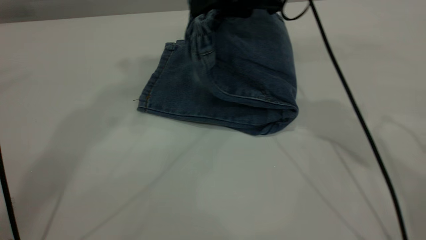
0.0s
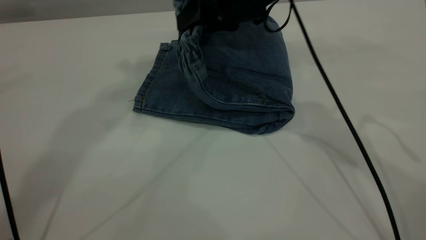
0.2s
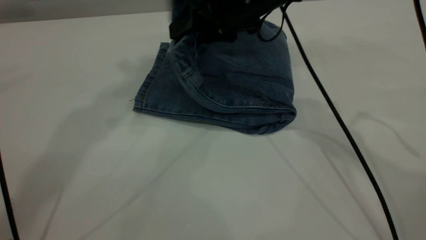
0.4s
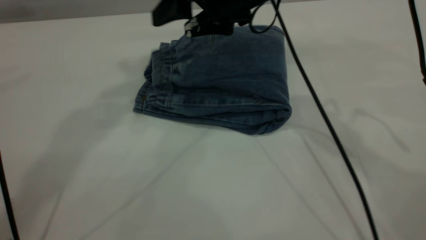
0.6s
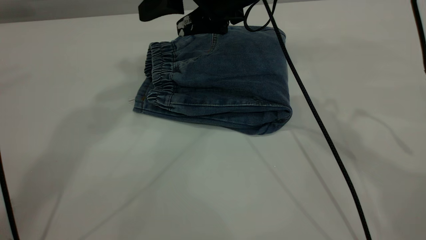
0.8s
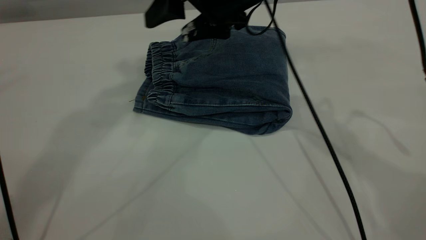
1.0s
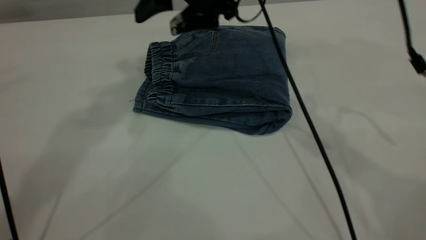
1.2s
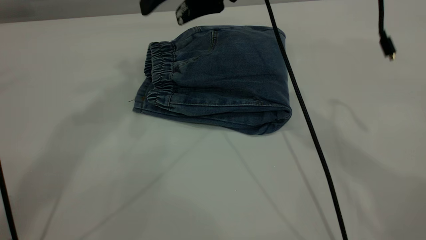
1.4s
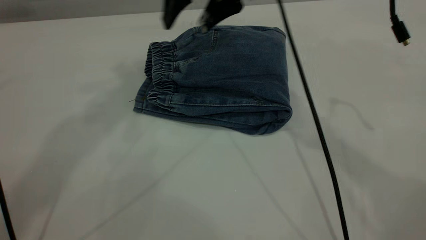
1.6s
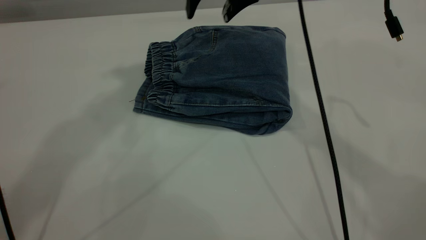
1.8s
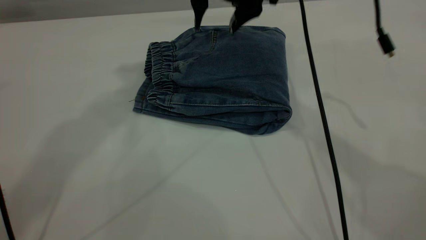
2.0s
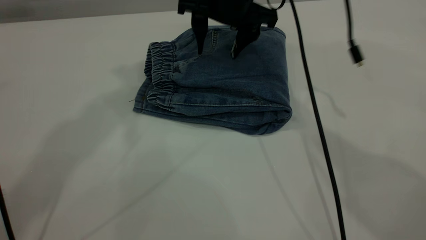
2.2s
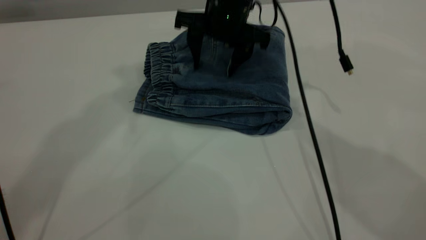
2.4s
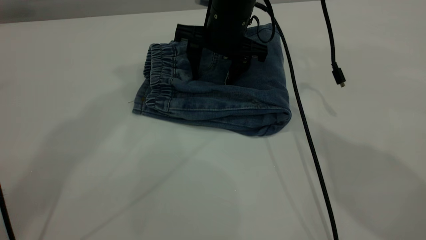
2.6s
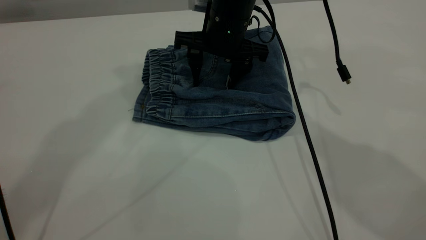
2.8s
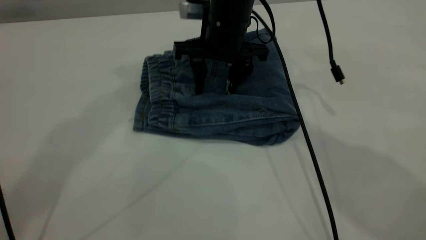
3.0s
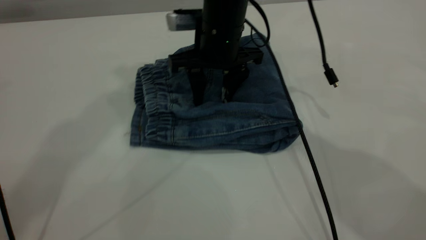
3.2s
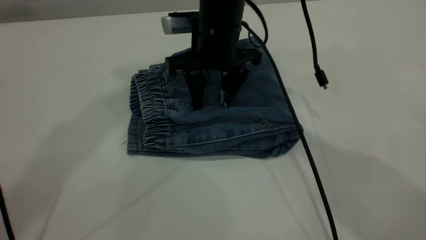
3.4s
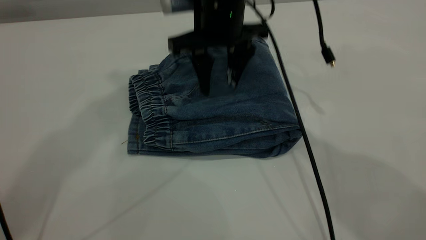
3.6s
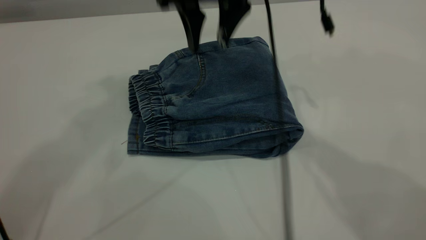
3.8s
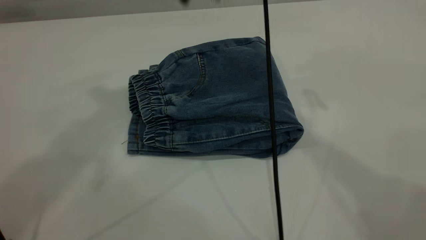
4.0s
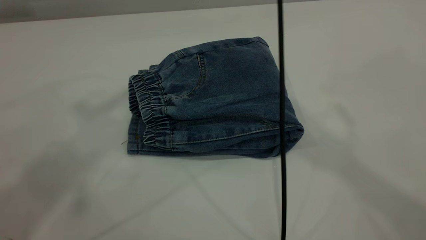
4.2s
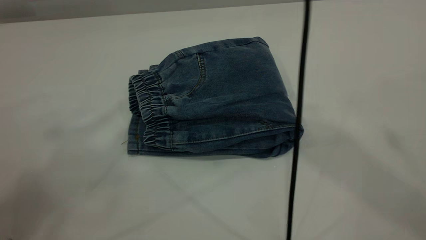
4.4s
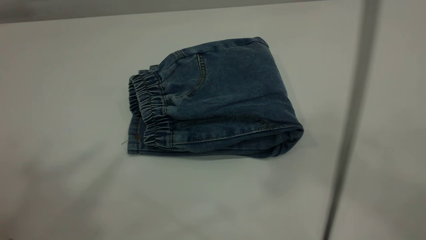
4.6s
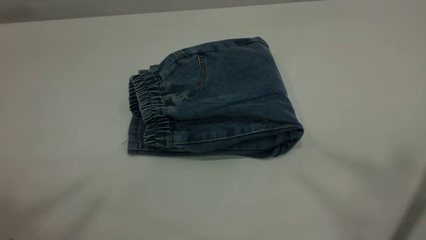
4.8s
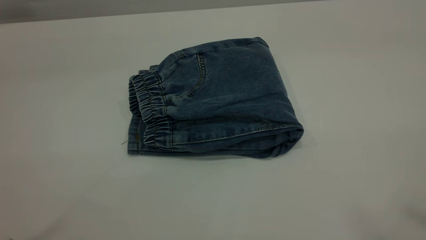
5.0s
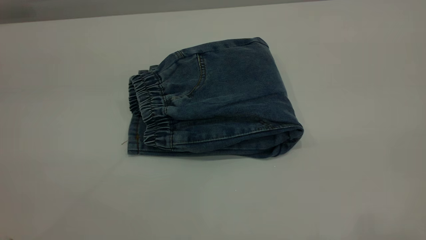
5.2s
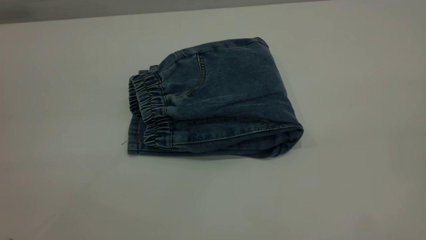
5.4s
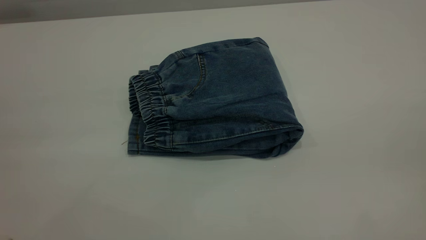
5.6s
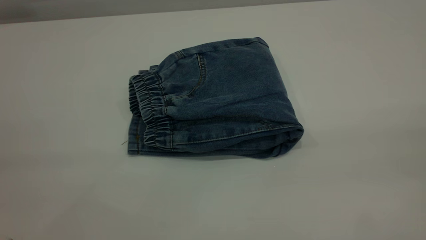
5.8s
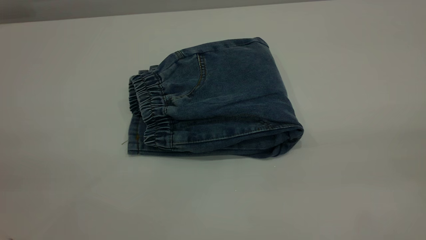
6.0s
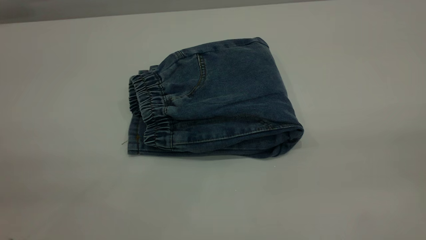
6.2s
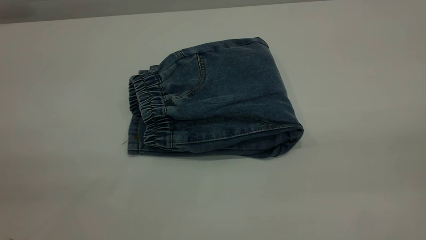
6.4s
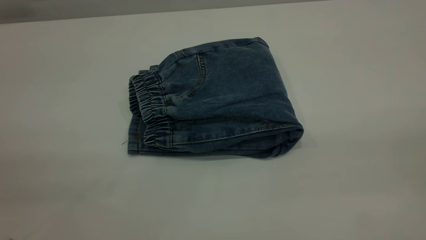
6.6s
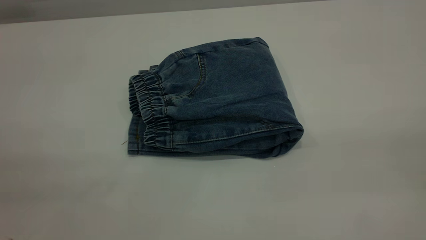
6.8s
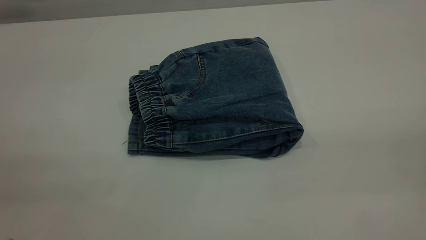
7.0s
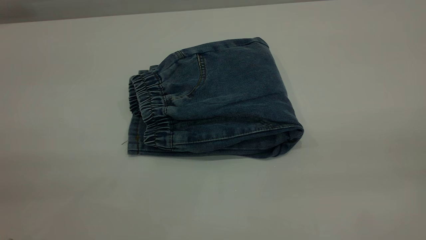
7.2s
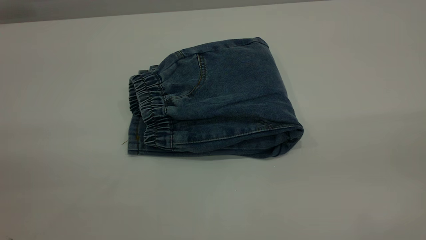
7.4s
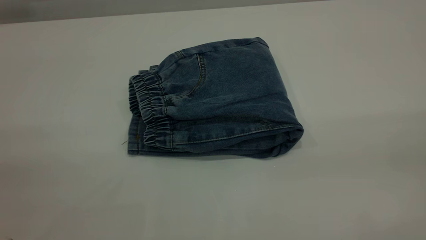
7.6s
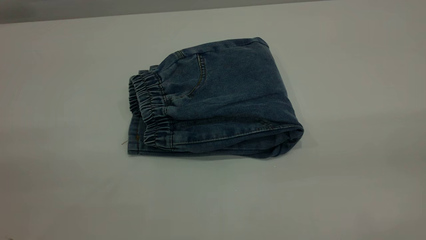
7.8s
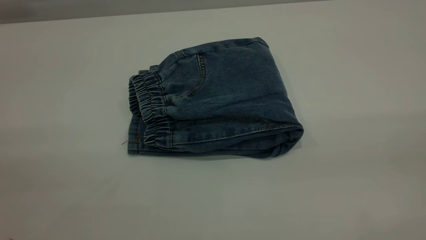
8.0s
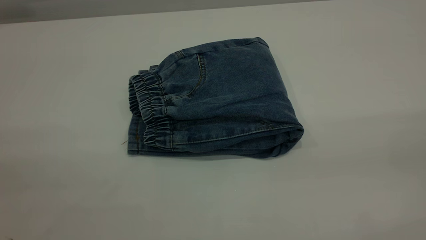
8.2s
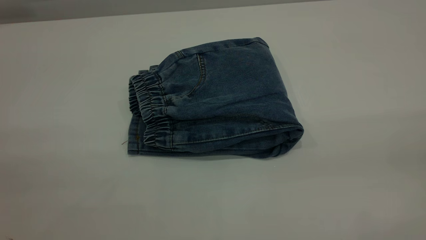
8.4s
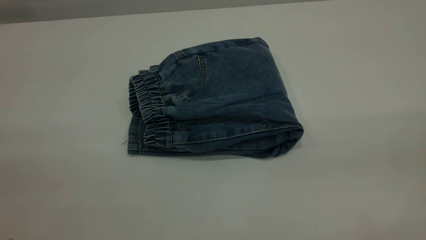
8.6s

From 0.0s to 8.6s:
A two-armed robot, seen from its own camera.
From 0.0s to 1.4s: The right gripper travels to the left by approximately 5 cm, and opens its fingers.
From 1.4s to 2.8s: The right gripper heads downward, covering roughly 10 cm.
From 2.8s to 4.4s: The left gripper moves backward and upward, some 20 cm. Meanwhile the right gripper heads upward, covering about 40 cm.
From 4.4s to 5.8s: The left gripper heads backward and downward, covering about 25 cm. The right gripper is displaced backward and to the right by approximately 40 cm.
